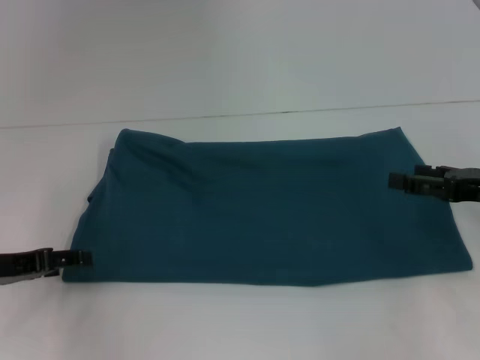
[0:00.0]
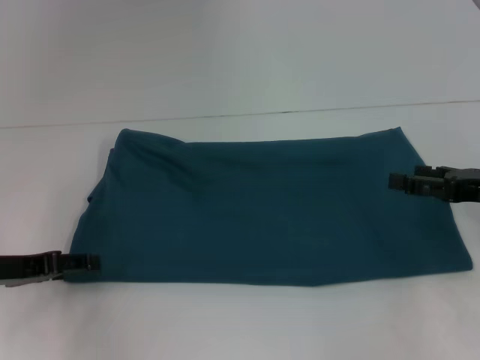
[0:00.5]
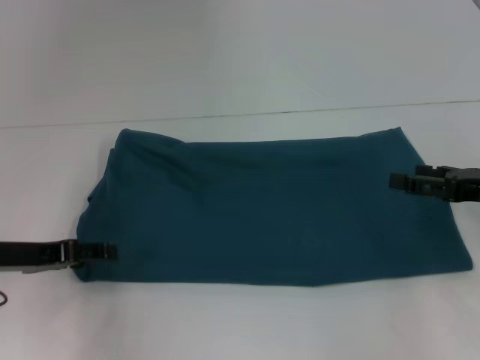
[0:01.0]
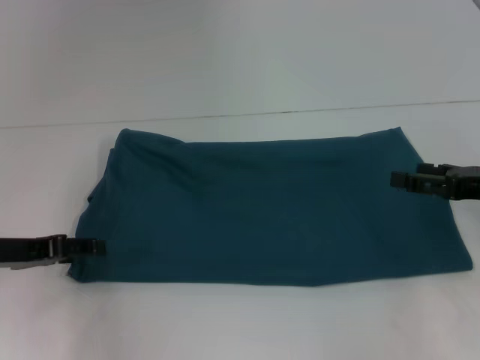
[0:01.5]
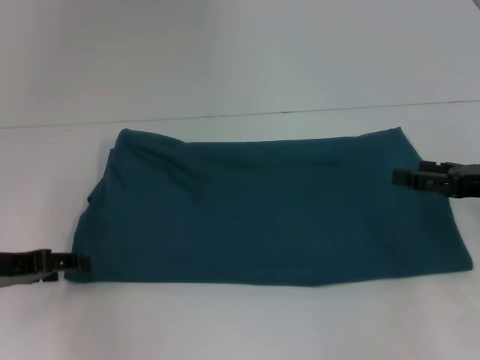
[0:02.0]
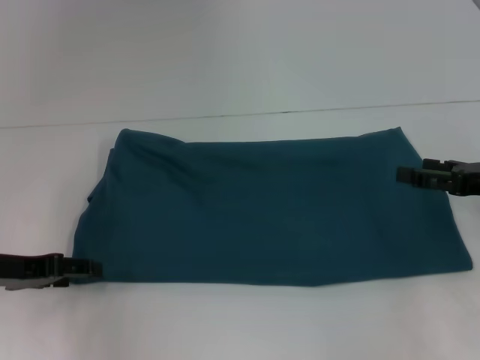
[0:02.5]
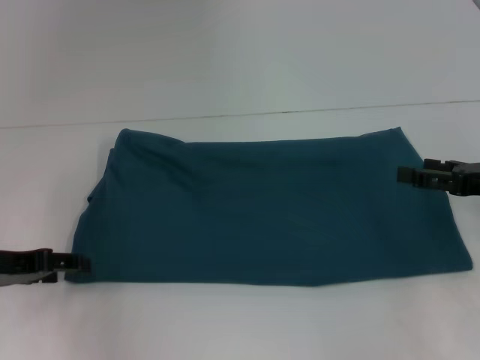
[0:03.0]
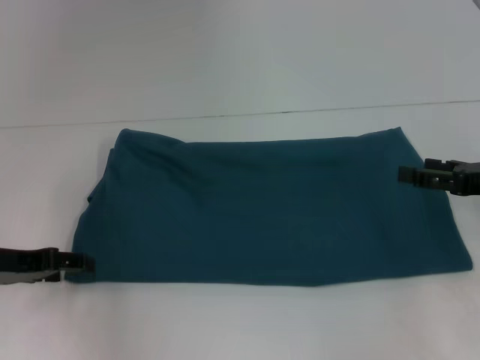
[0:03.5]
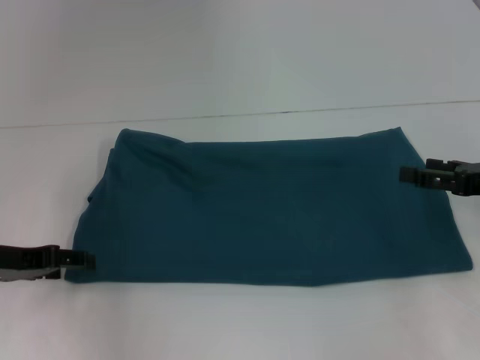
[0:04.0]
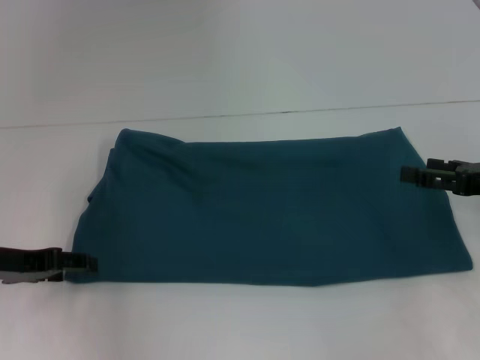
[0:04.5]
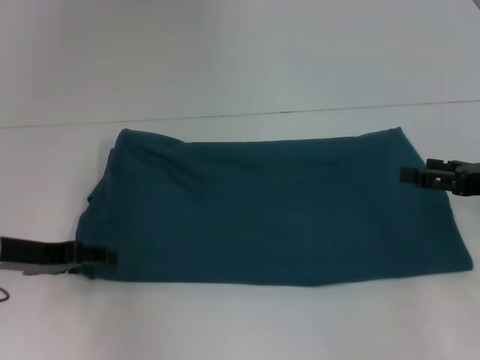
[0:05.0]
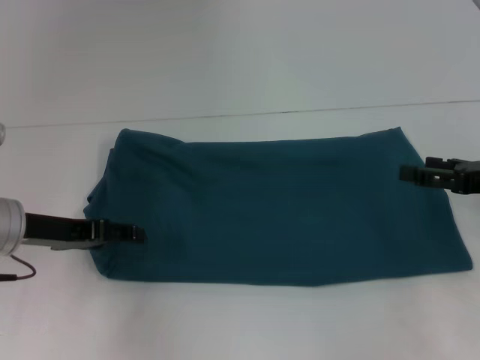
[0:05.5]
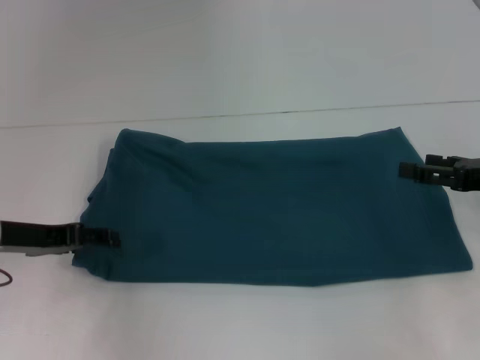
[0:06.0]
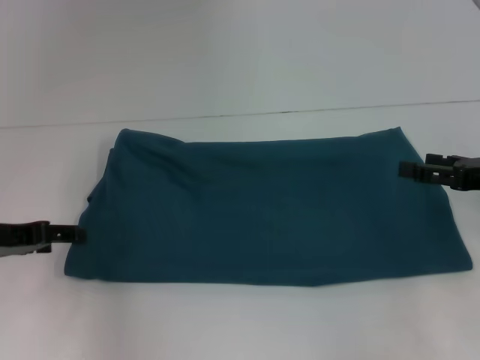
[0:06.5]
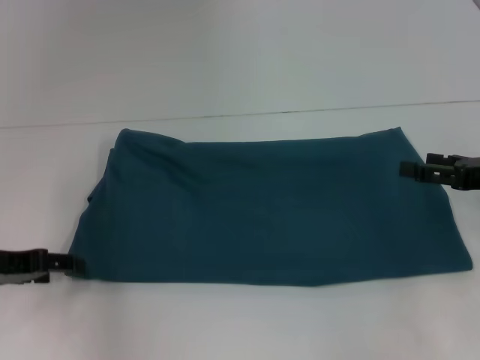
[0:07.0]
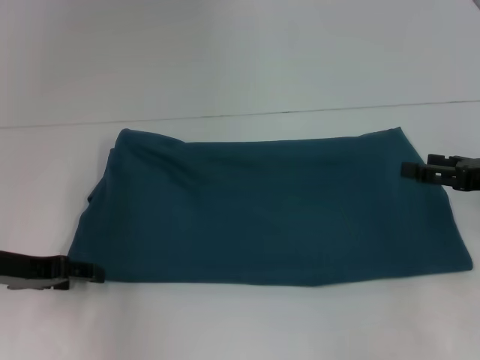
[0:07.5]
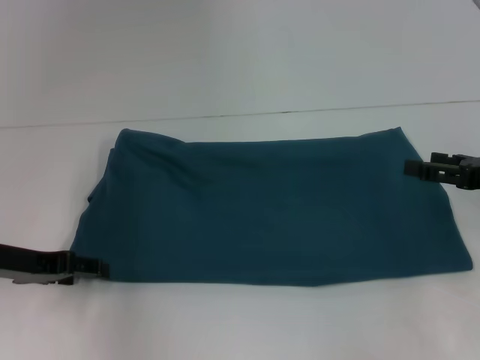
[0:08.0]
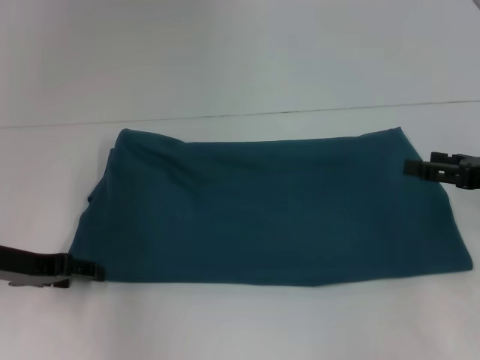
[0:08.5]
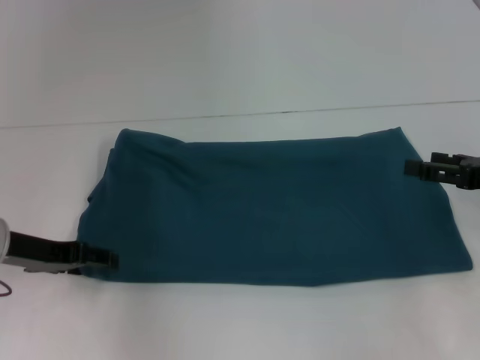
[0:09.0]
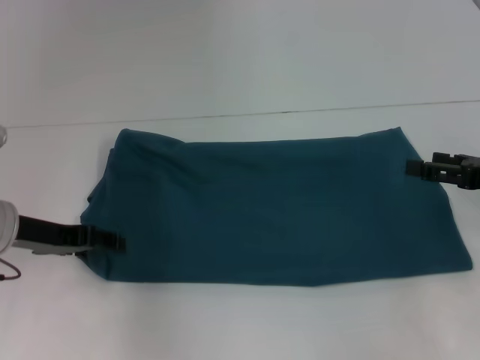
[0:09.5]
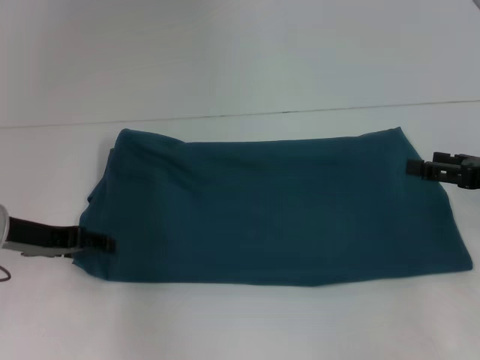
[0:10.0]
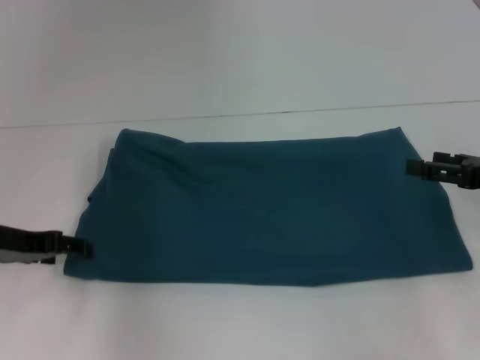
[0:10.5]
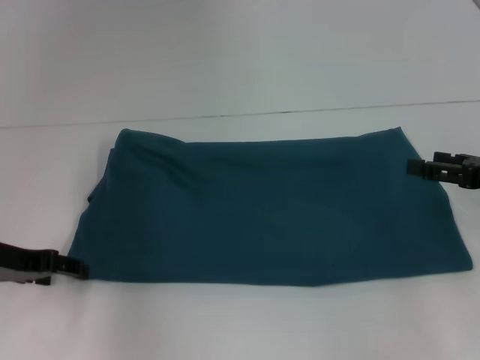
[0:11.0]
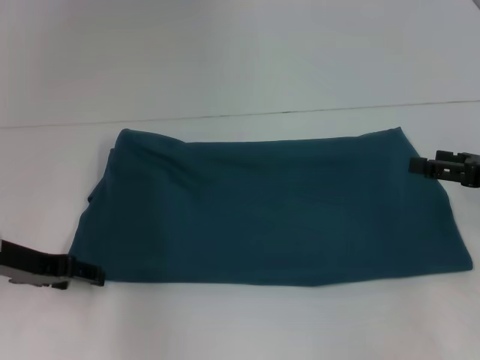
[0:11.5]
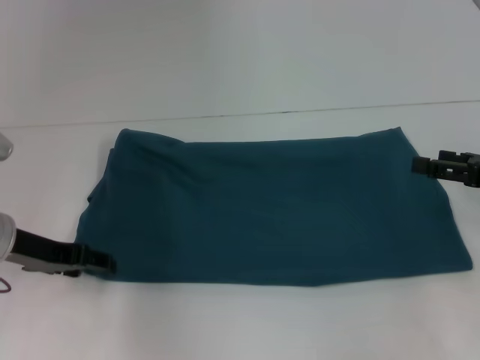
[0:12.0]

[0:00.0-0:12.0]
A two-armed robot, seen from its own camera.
0:02.0 to 0:04.0: The grippers make only small movements.
0:04.0 to 0:12.0: There are only small adjustments of the grippers.

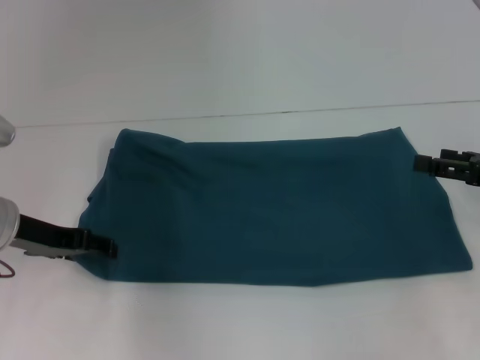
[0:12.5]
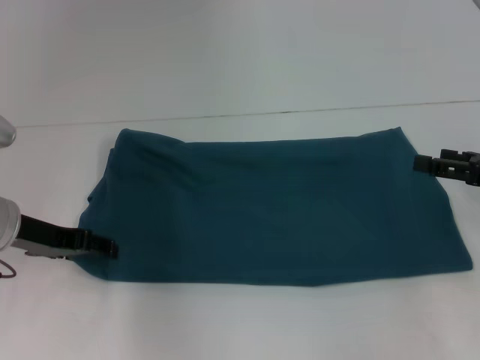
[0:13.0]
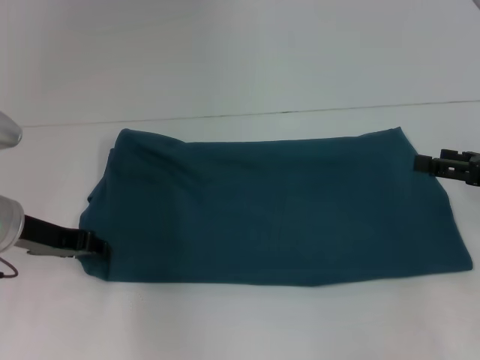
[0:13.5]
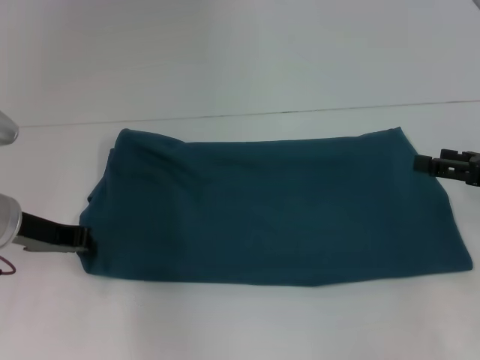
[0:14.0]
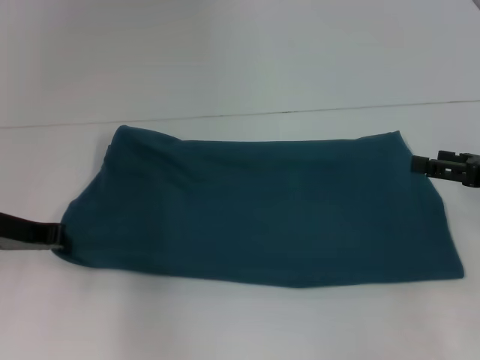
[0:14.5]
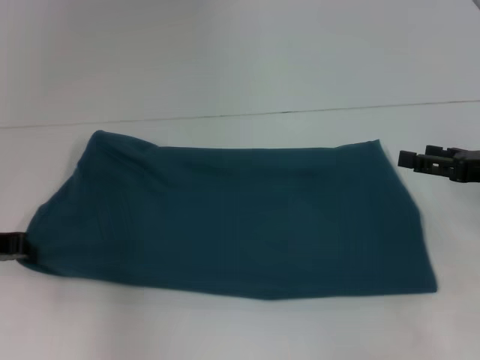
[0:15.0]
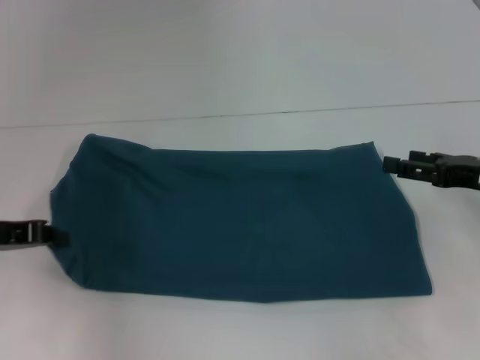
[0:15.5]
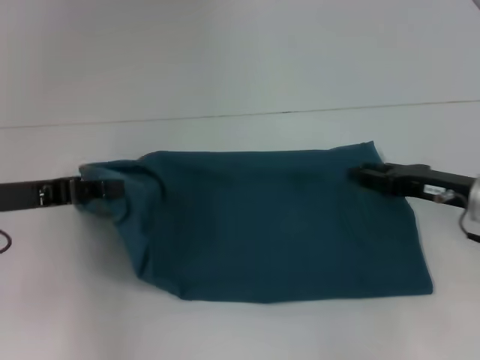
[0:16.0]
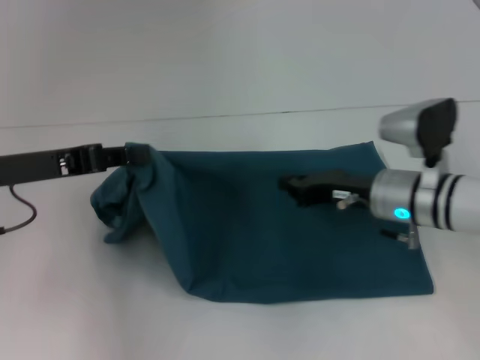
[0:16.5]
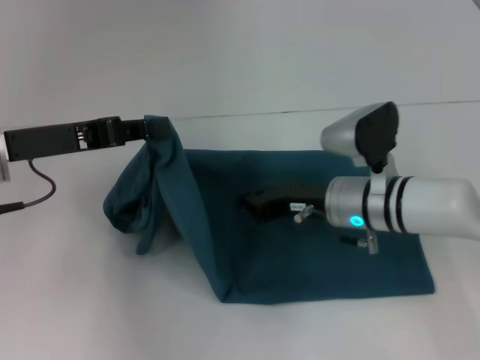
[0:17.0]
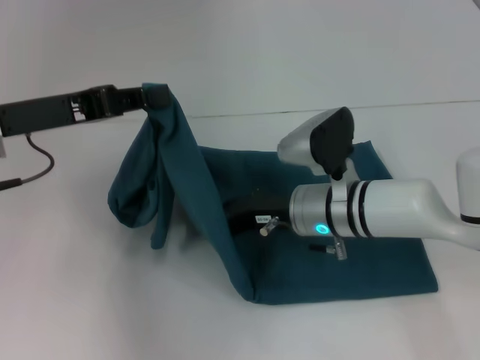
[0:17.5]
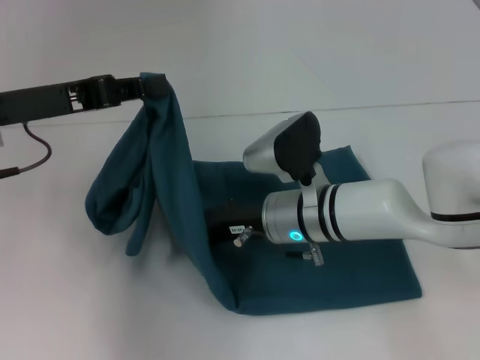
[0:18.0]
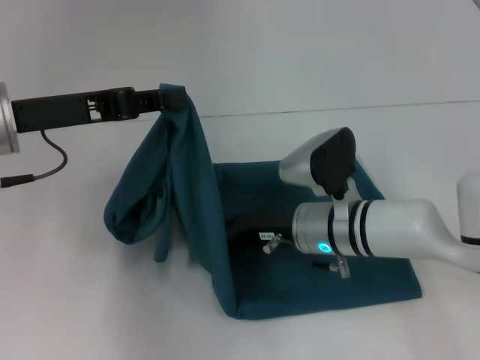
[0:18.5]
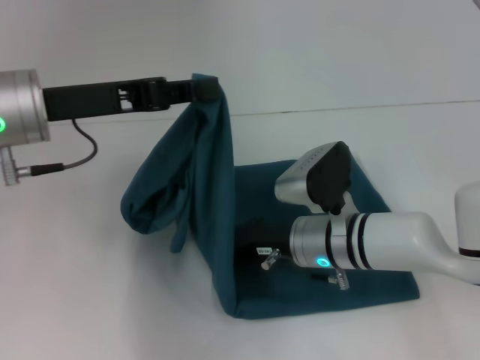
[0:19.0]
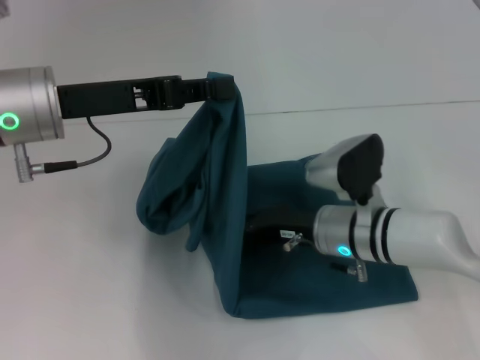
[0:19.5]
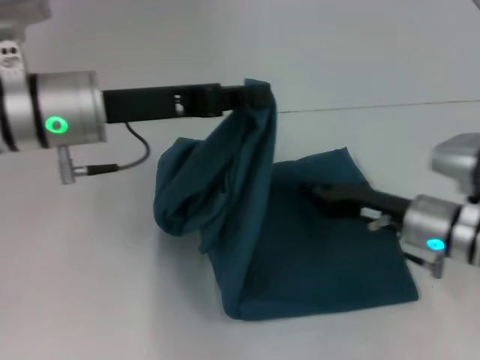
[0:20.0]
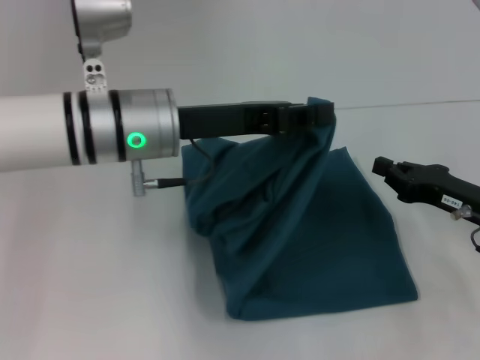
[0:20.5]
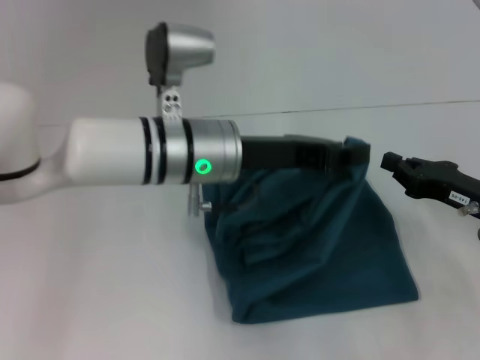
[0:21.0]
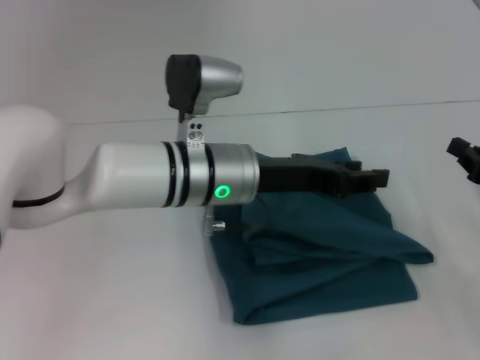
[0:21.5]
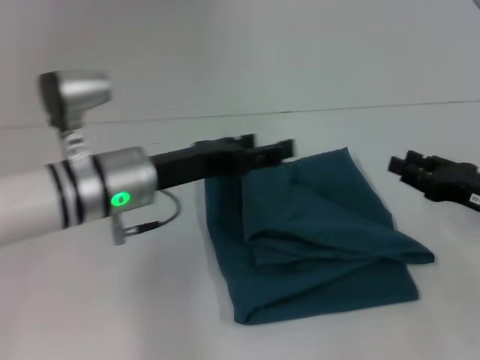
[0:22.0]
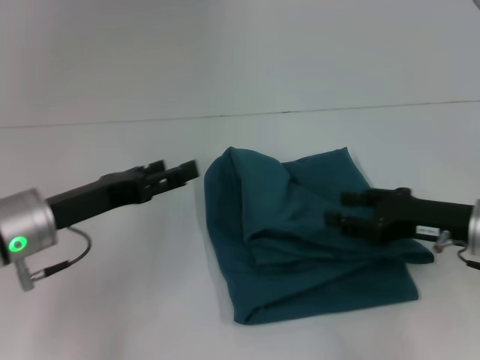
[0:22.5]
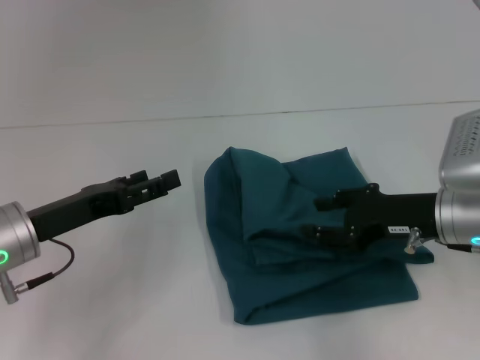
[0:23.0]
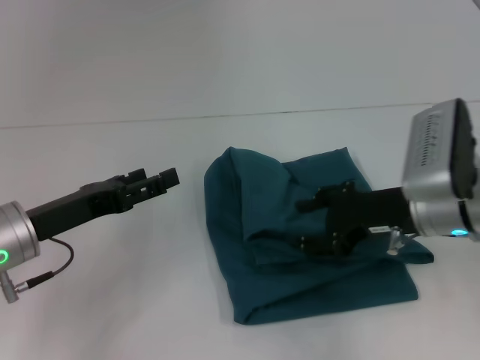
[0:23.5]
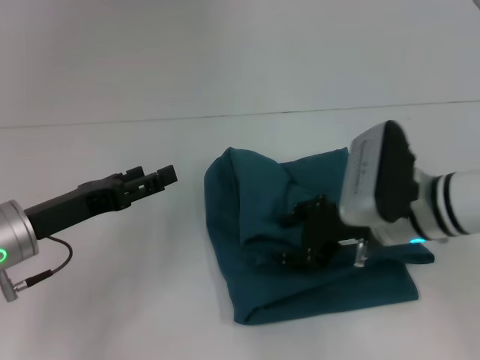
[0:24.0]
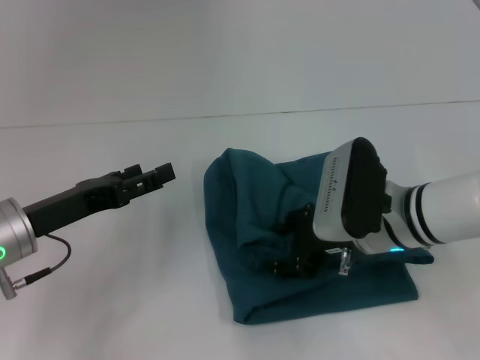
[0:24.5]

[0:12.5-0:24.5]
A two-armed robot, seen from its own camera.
Step, 0:12.5 to 0:19.5: Press the middle of the clothes with your right hand.
Step, 0:20.0 to 0:21.5: Fold the clothes to the left.
0:12.5 to 0:14.5: The left gripper closes.
0:14.5 to 0:16.5: The left gripper changes place by about 5 cm, while the right gripper shifts about 15 cm to the left, and closes.
0:16.5 to 0:18.5: The left gripper changes place by approximately 5 cm. Meanwhile the right gripper goes roughly 10 cm to the left.
0:18.5 to 0:20.5: Both grippers move to the right, approximately 15 cm.
0:20.5 to 0:22.5: The left gripper shifts roughly 15 cm to the left and downward, and opens its fingers, while the right gripper reaches about 5 cm to the right, then returns, and opens.
0:22.5 to 0:24.5: The right gripper goes roughly 10 cm to the left.

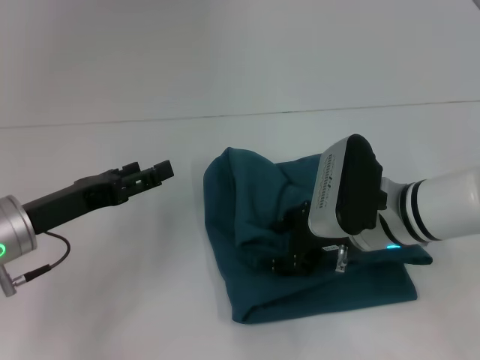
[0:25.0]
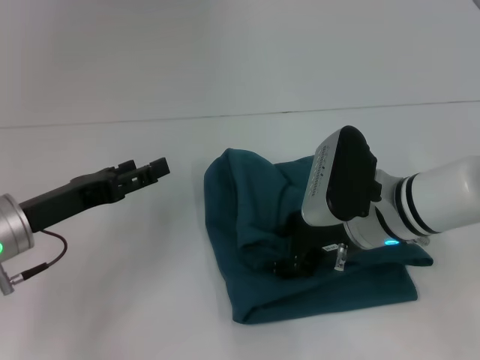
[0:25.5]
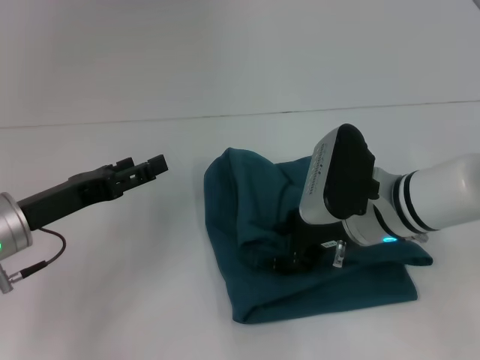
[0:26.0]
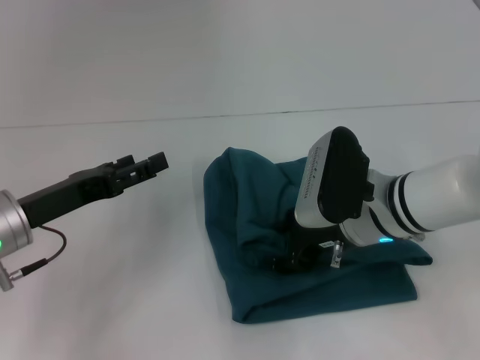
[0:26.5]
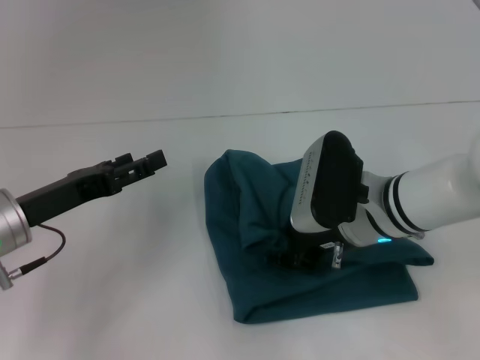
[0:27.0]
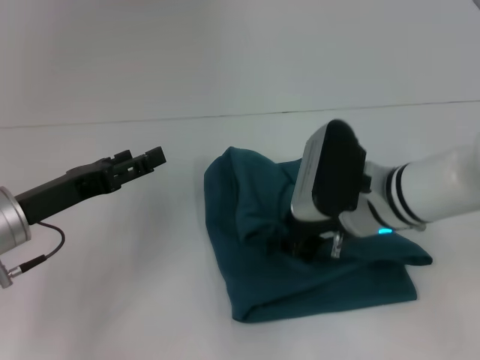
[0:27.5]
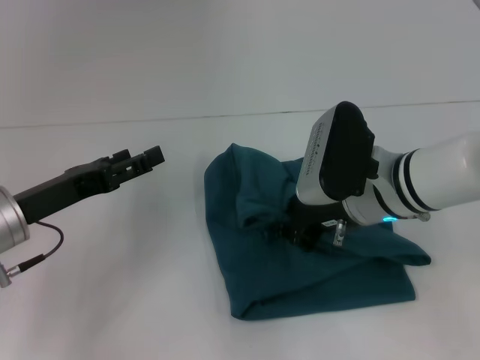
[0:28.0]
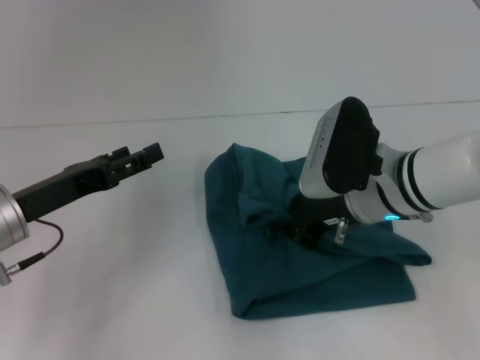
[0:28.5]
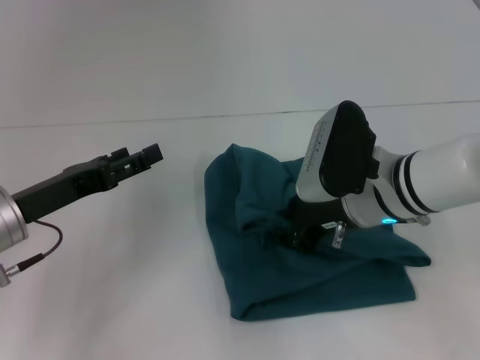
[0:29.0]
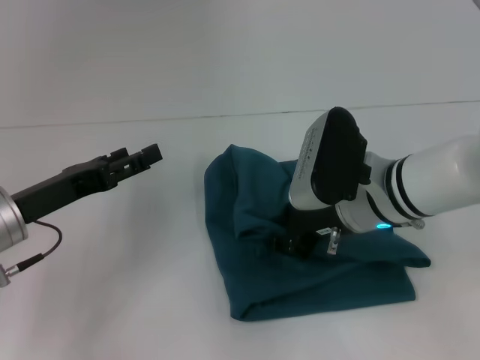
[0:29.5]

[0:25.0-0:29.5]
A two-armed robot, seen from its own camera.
0:25.0 to 0:29.5: There are only small adjustments of the grippers.
